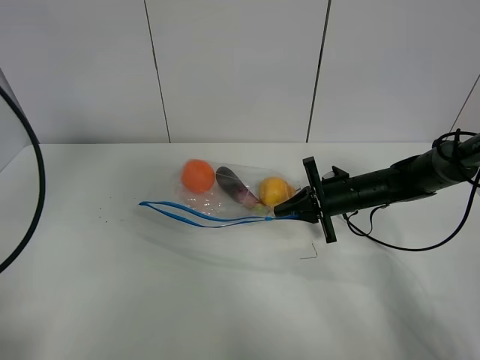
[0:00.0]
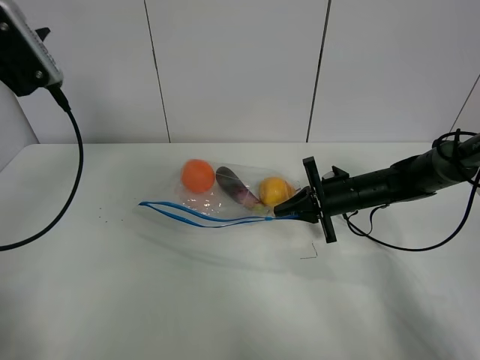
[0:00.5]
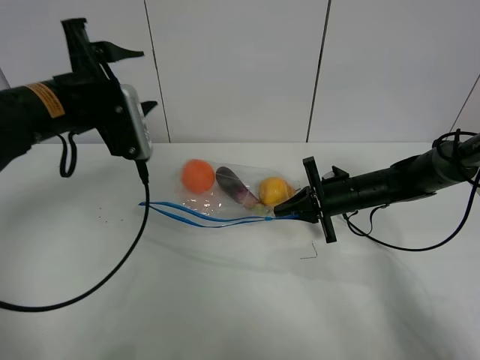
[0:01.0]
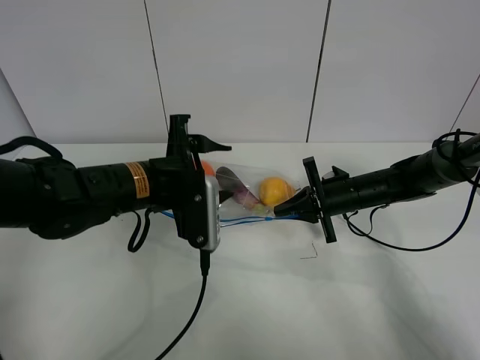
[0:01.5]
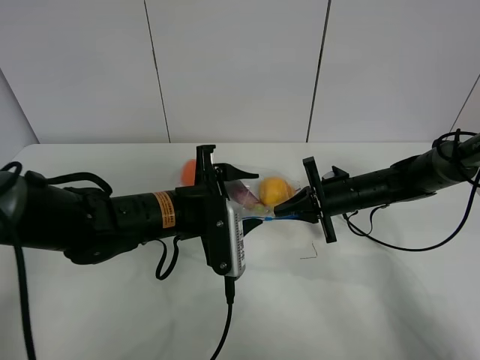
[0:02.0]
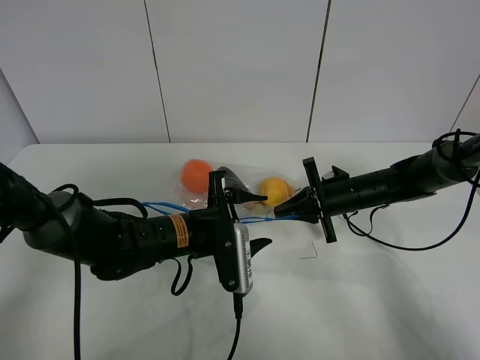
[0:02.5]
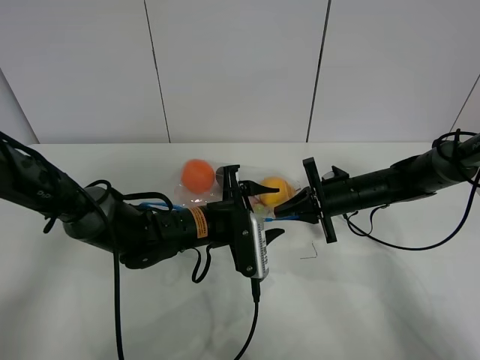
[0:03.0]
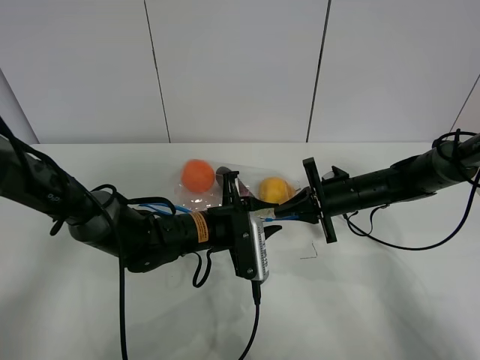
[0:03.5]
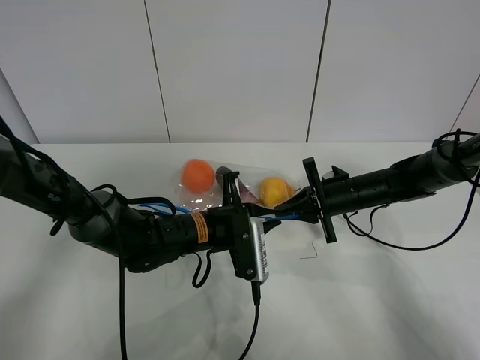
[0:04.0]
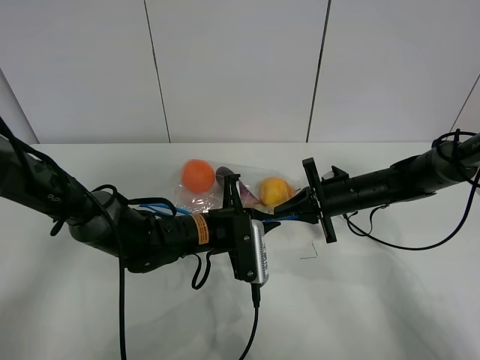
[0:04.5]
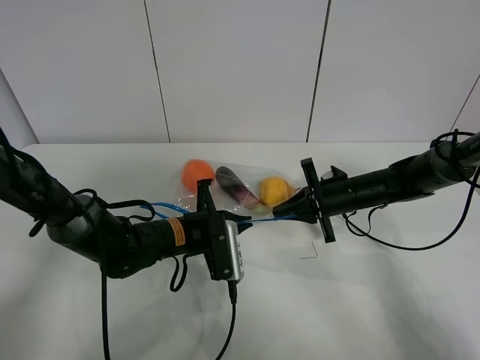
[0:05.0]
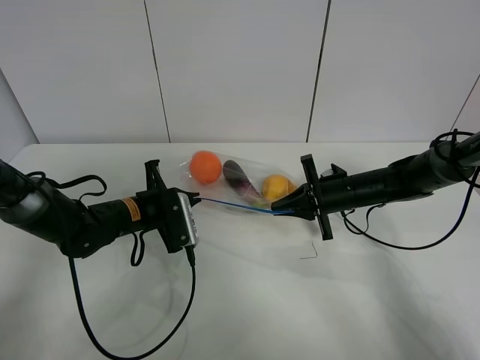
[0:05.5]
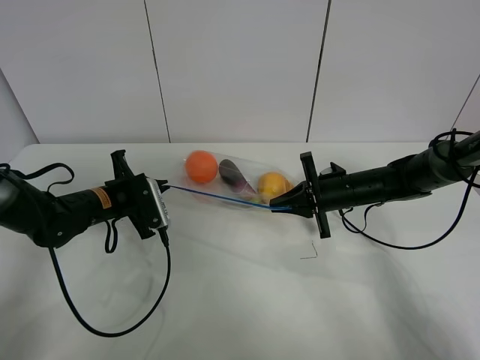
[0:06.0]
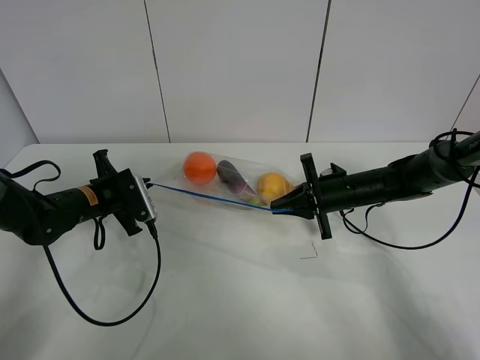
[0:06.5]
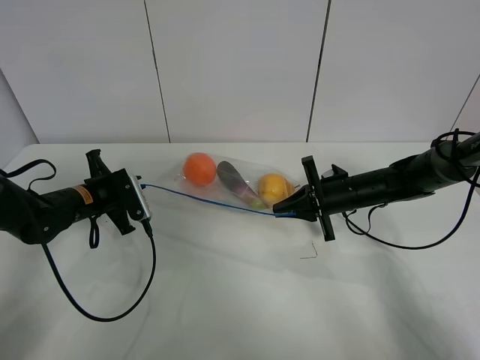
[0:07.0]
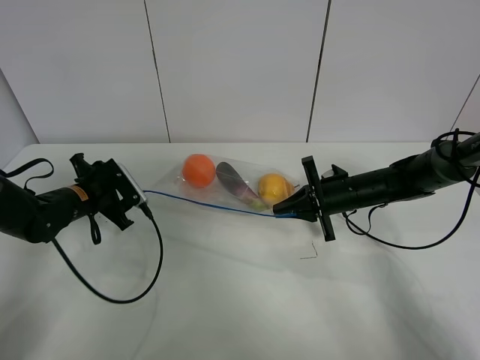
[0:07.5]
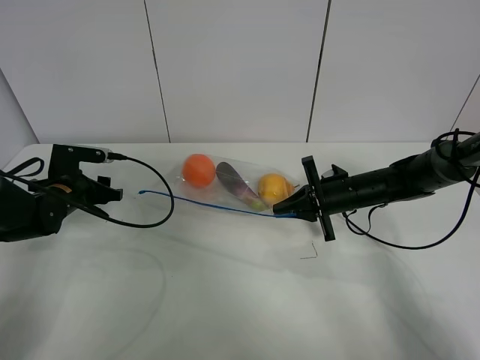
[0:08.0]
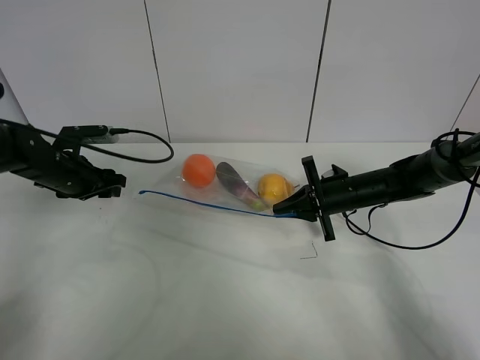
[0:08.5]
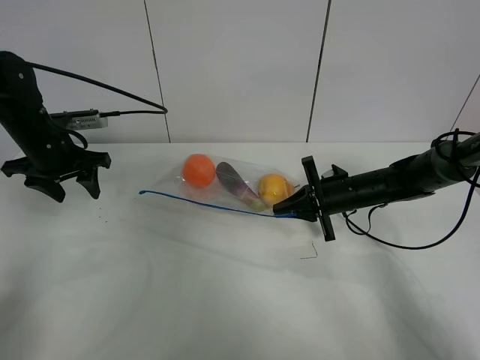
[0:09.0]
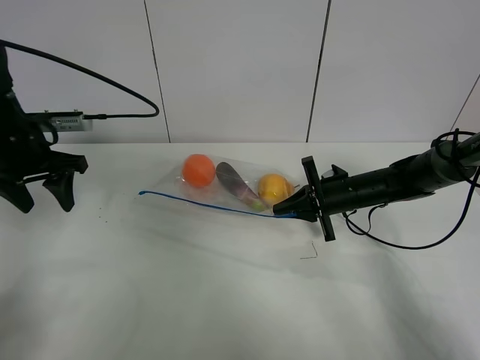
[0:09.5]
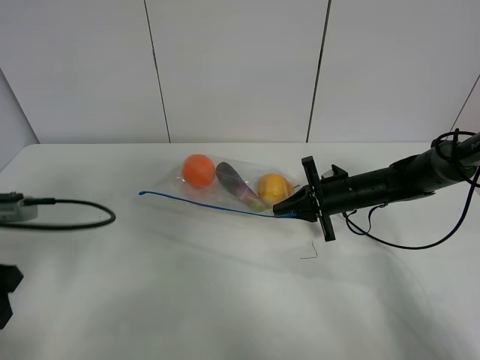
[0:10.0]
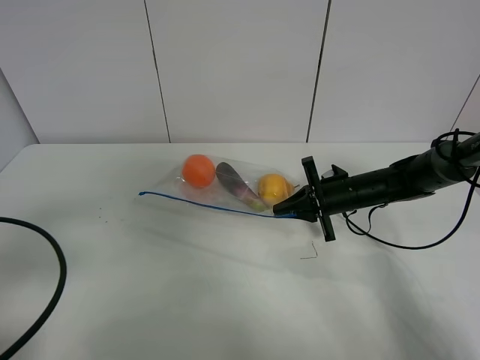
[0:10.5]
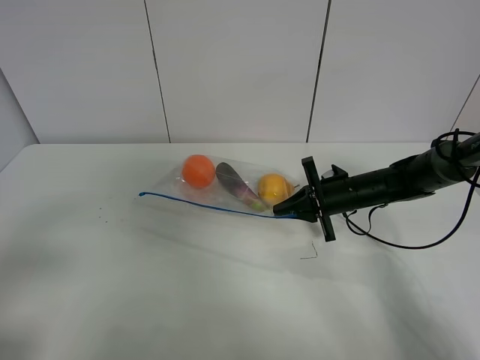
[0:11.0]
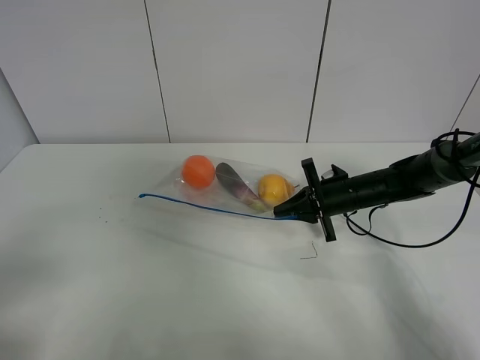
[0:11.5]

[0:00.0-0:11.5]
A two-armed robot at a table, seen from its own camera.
Step, 0:00.0 to 0:07.0: Pull the fruit bag with left gripper.
0:00.0 to 0:02.0: The left gripper moves to the right and downward, some 30 cm.
0:02.0 to 0:04.0: The left gripper is displaced downward by some 5 cm, and closes.
0:04.0 to 0:06.0: The left gripper travels to the left by approximately 20 cm.
0:06.0 to 0:07.5: The left gripper shifts approximately 5 cm to the left, and opens up.
0:07.5 to 0:09.5: The left gripper shifts some 15 cm upward.
0:09.5 to 0:11.5: The left gripper shifts some 30 cm backward.

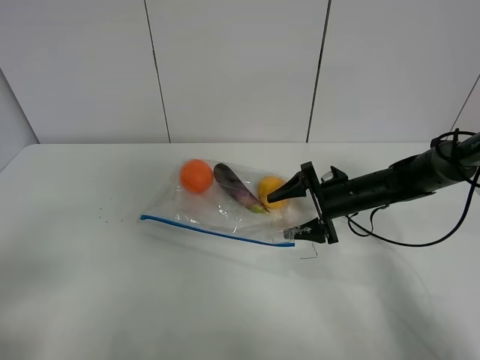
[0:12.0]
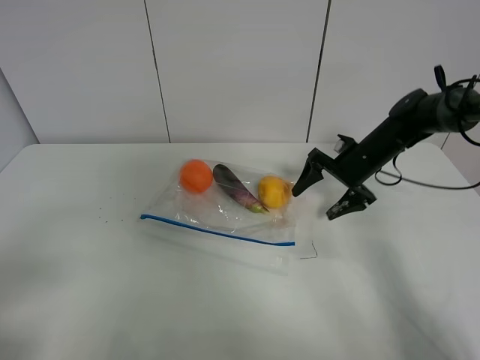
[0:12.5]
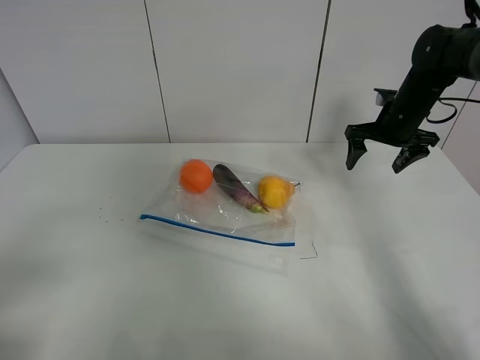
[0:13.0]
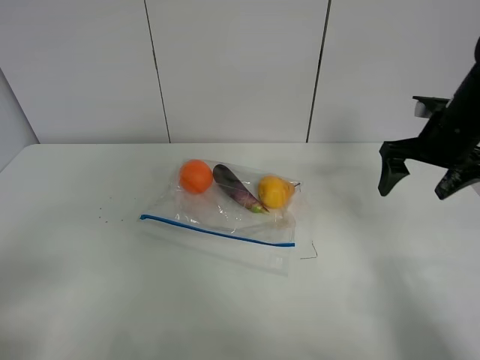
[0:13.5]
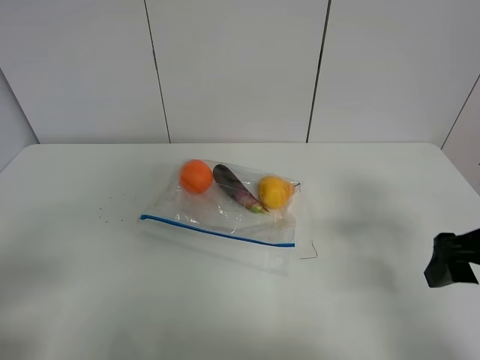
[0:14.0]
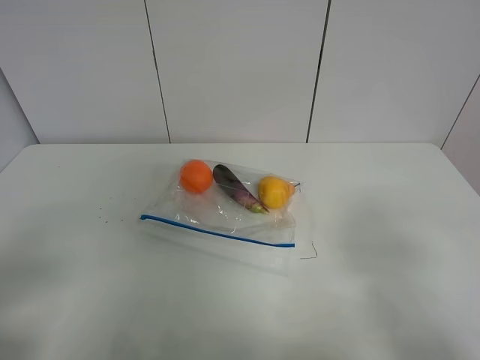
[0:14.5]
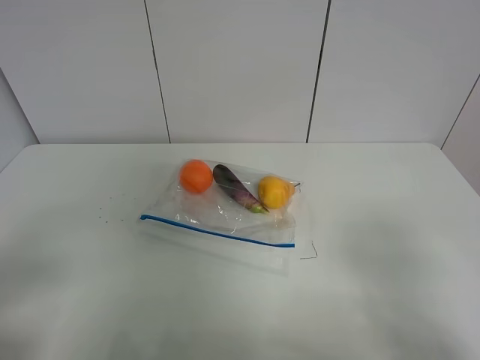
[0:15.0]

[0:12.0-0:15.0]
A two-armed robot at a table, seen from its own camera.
0:12.0 to 0:13.5: The right gripper shifts approximately 20 cm upward and to the right.
0:13.5 to 0:15.0: The right gripper is displaced backward by approximately 35 cm.

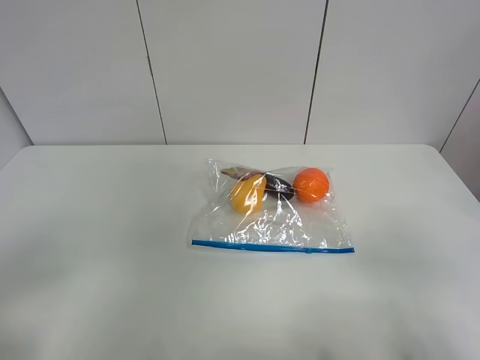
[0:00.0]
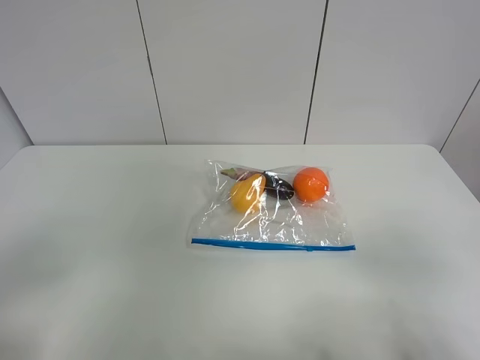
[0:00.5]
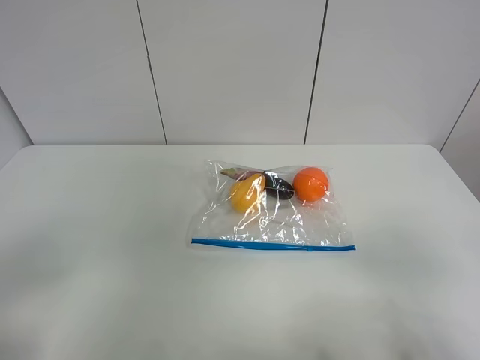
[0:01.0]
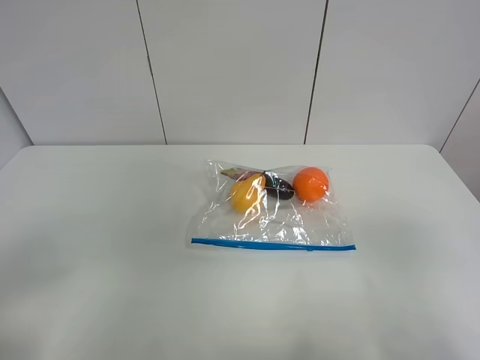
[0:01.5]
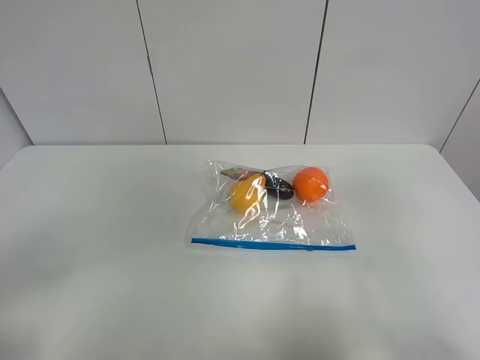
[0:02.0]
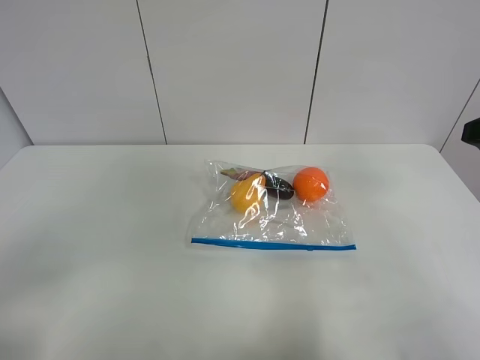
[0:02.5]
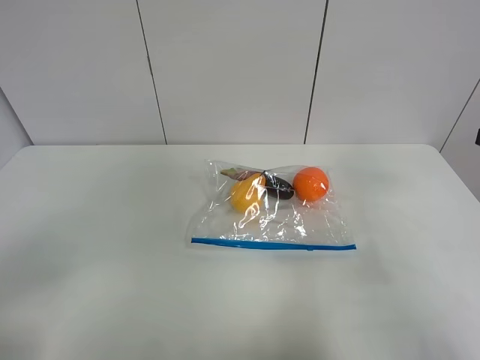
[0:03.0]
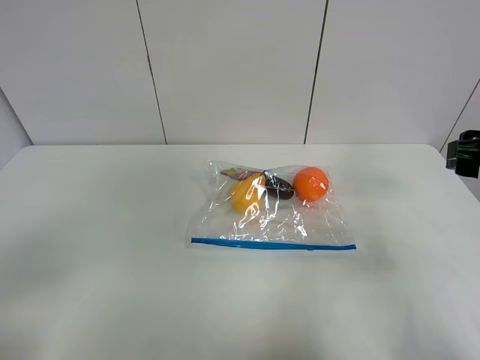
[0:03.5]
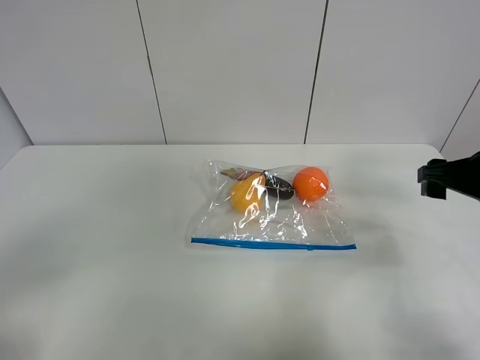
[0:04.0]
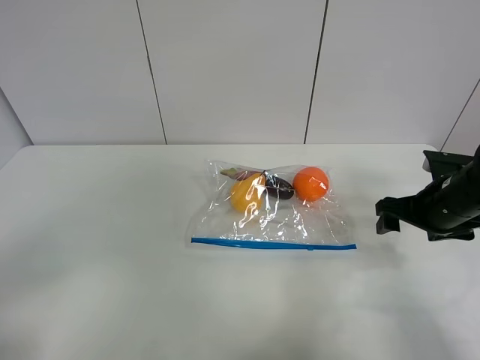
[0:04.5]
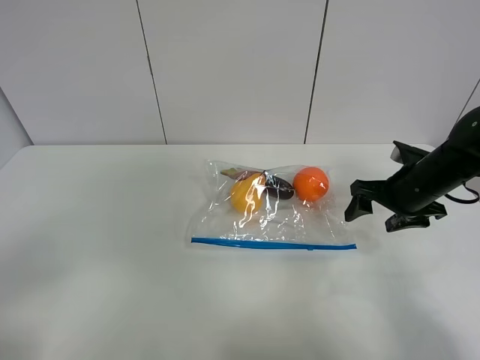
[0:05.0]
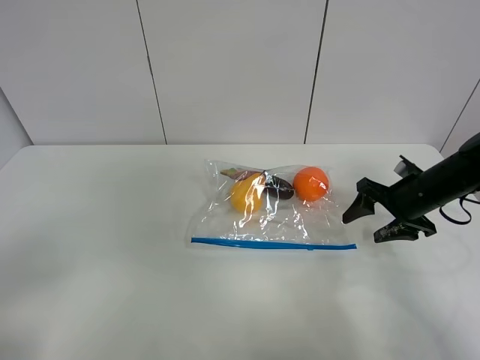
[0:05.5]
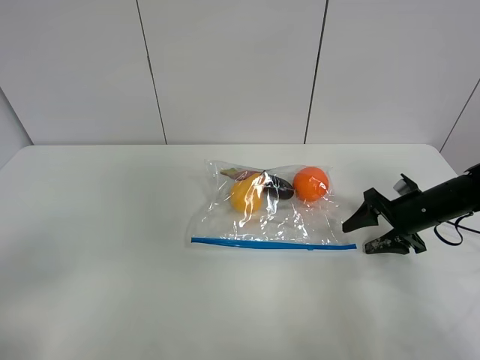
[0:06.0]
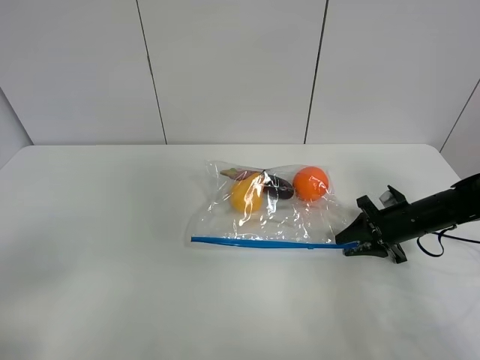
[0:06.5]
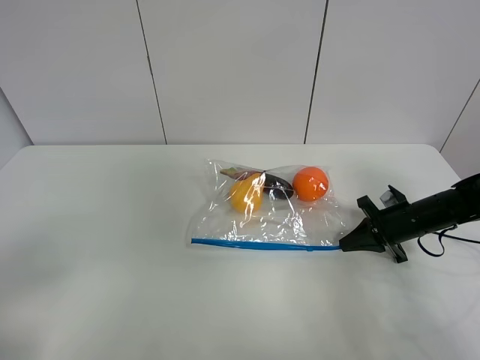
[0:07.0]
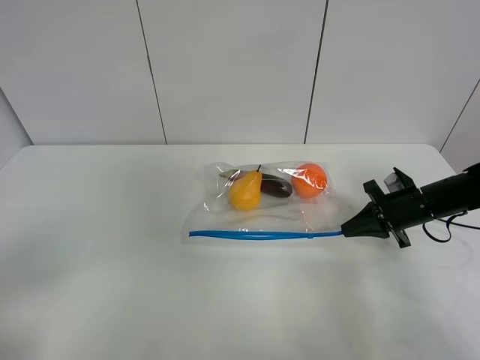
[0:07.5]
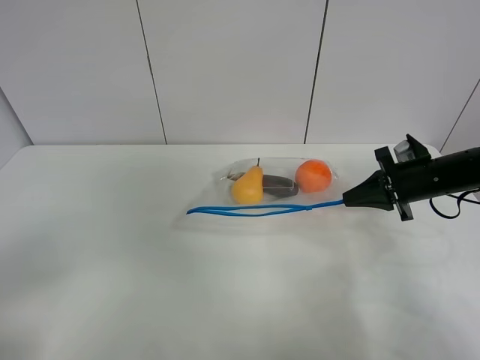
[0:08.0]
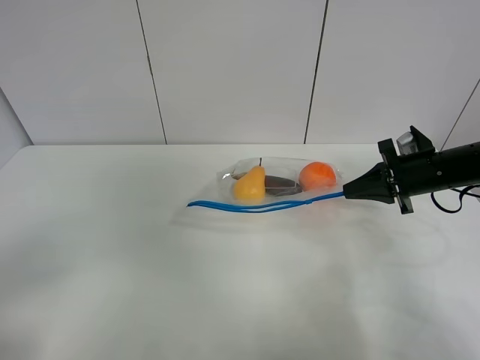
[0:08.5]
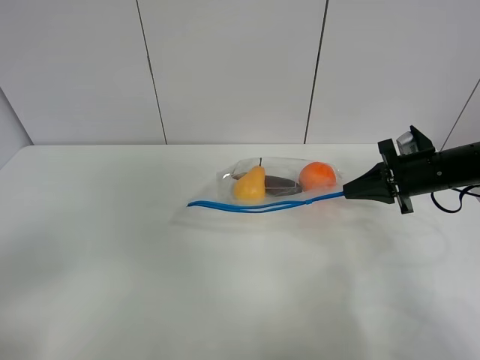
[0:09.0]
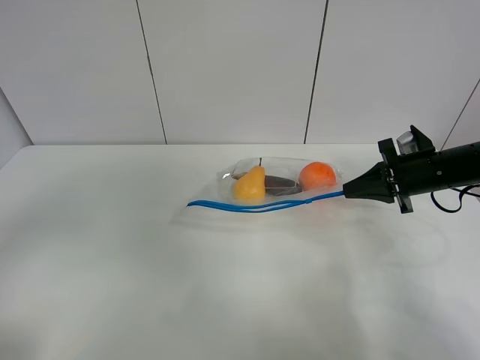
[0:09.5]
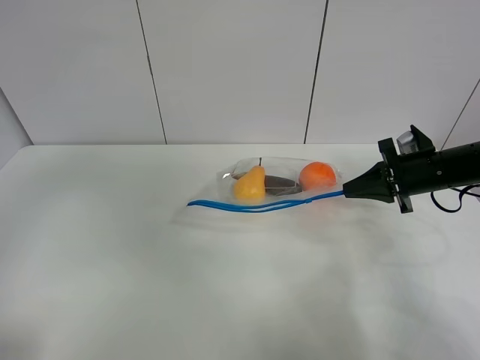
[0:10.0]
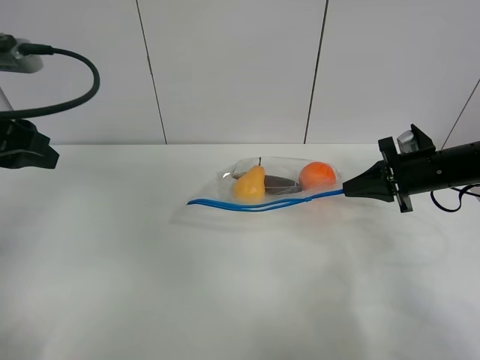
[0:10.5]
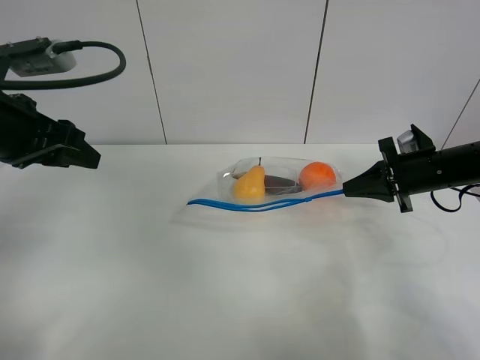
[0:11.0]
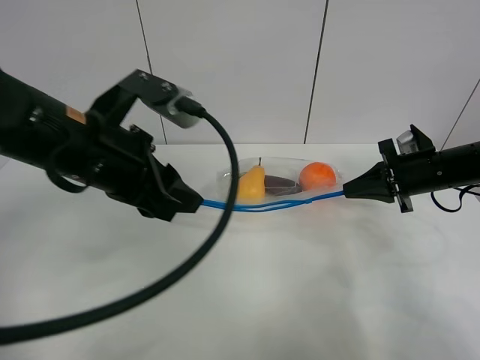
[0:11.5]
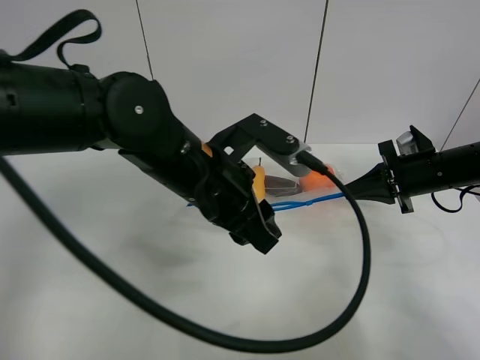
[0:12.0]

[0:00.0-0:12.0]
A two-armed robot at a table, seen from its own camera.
Step, 0:00.0 to 0:06.5: Grasp the fruit bag with right gripper.
Step, 0:07.0 to 0:08.5: Lift the fruit bag with your right gripper.
0:00.0 to 0:02.0: The right gripper is displaced forward and upward by about 10 cm.
0:02.0 to 0:04.0: The right gripper is displaced forward and downward by some 20 cm.
0:04.0 to 0:06.0: The right gripper goes about 15 cm downward and forward.
0:06.0 to 0:08.0: The right gripper moves upward, roughly 10 cm, and closes up.
0:08.0 to 0:10.0: The left gripper travels forward and upward by roughly 20 cm.
0:10.0 to 0:12.0: The left gripper travels to the right and downward by approximately 30 cm.
